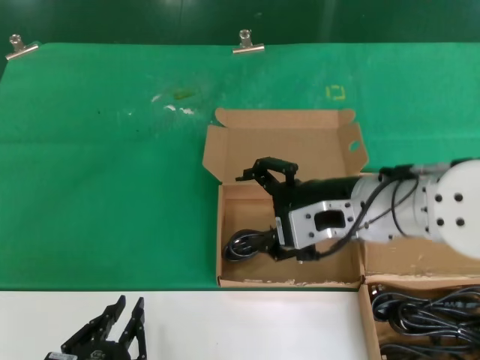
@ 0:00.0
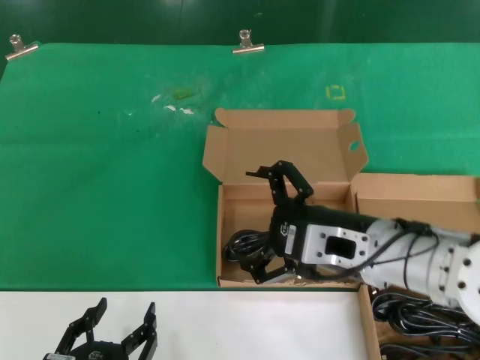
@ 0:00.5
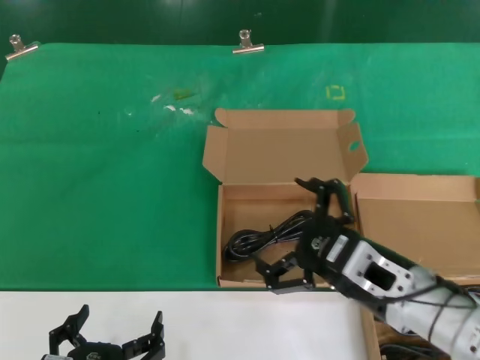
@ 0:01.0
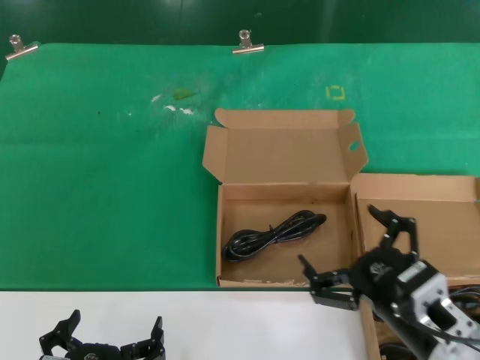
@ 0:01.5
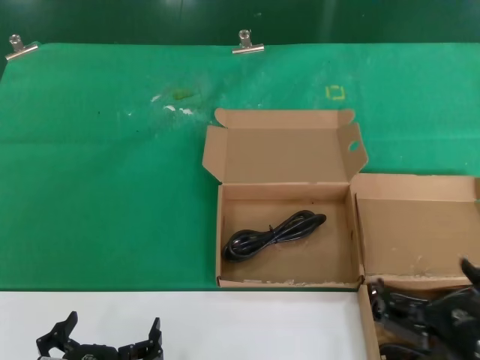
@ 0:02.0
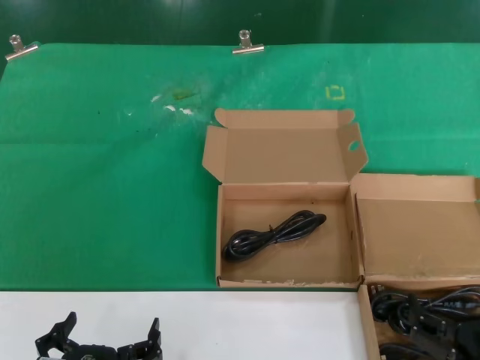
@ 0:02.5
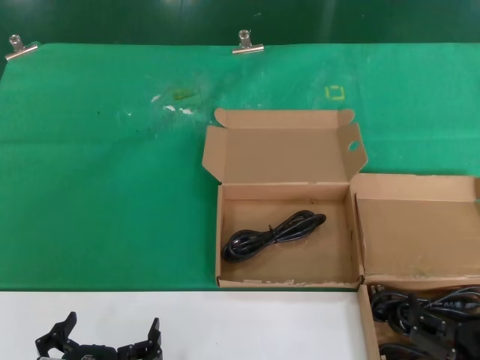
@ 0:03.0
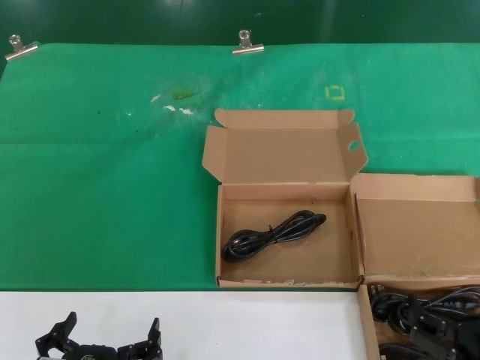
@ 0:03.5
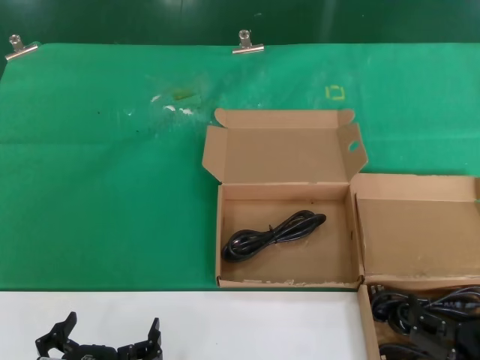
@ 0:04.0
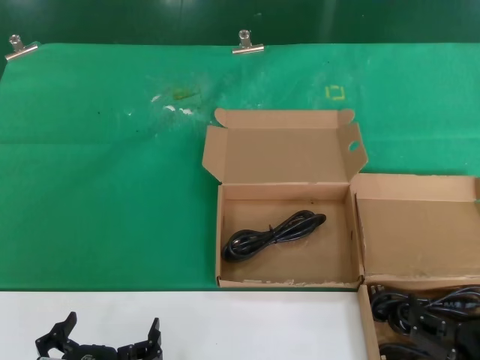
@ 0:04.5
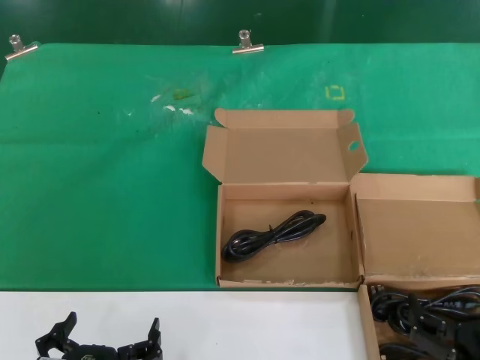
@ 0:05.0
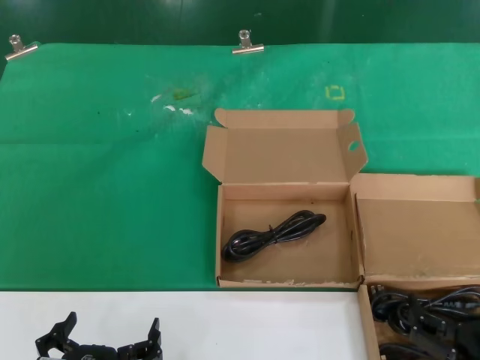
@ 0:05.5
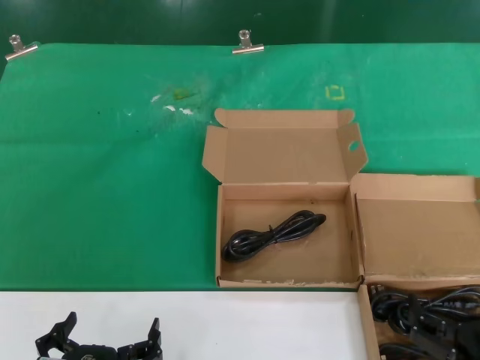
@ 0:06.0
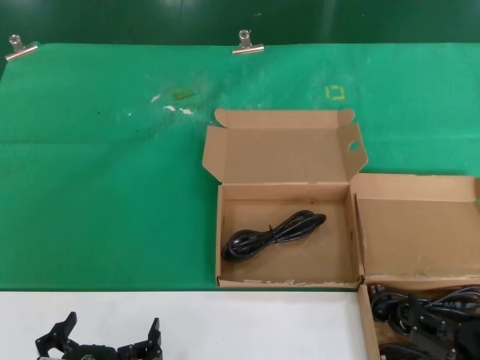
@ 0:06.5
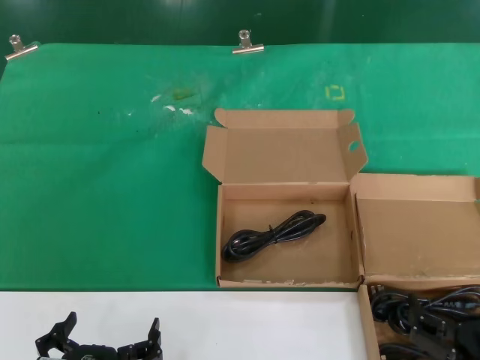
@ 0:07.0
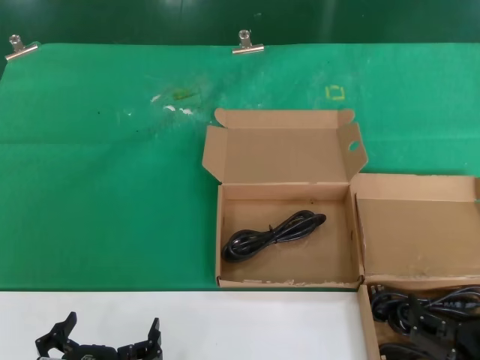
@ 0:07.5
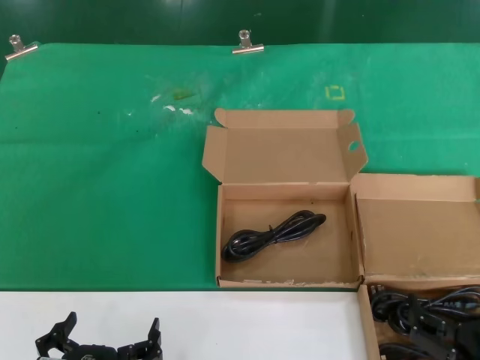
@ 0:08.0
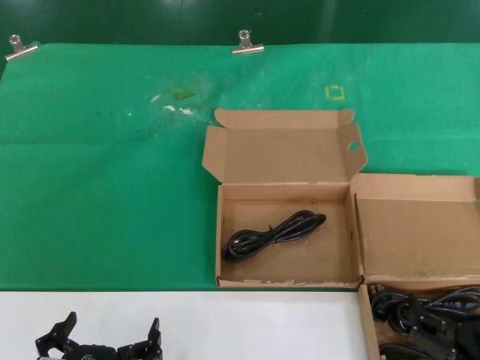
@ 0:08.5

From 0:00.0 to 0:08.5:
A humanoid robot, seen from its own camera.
Task of the whole recording: take the parts from the box containing them and put them into an empty box.
From 0:00.0 to 0:02.0: The right hand travels downward, backward and to the right by about 30 cm.
From 0:02.0 to 0:04.0: The hands make only small movements.
From 0:04.0 to 0:08.5: Both hands stay about where they are.

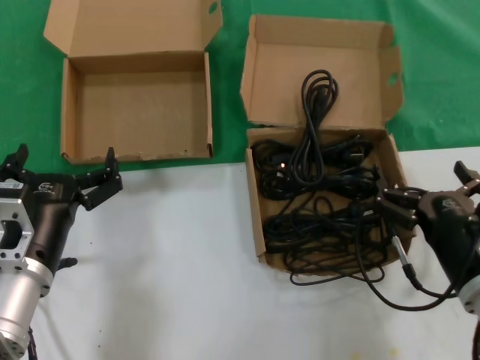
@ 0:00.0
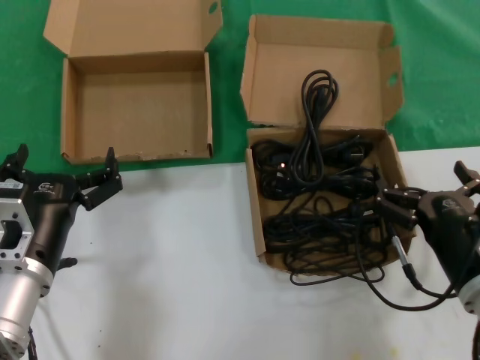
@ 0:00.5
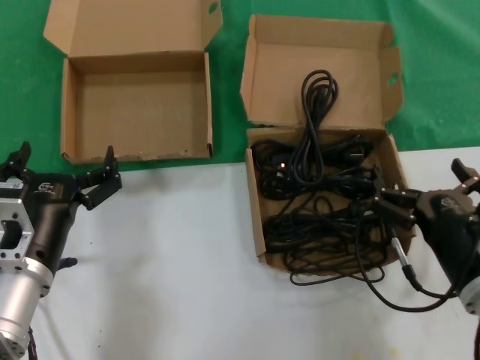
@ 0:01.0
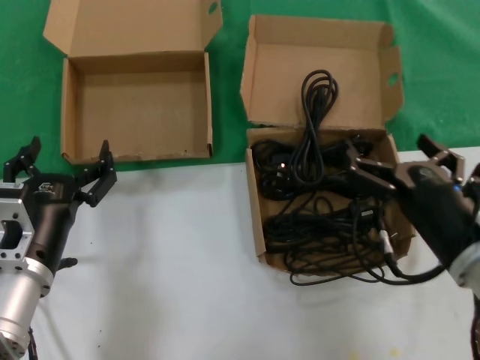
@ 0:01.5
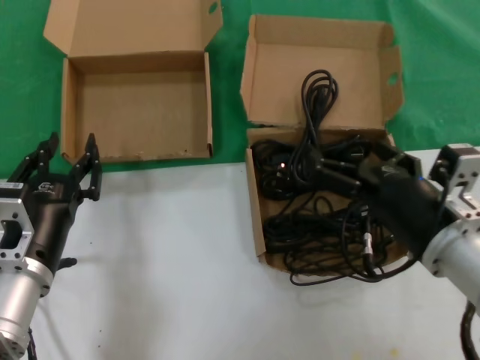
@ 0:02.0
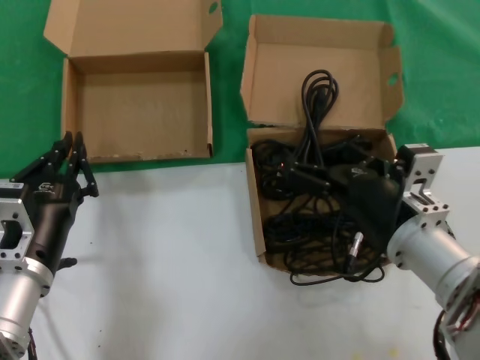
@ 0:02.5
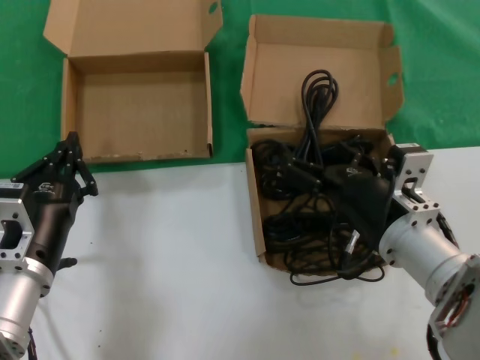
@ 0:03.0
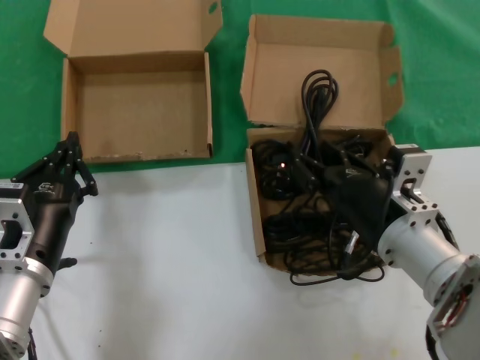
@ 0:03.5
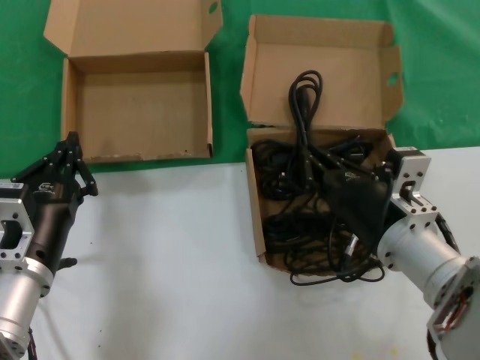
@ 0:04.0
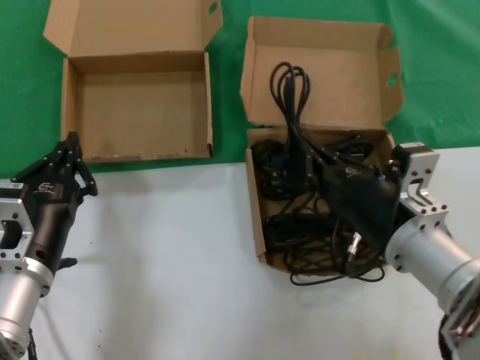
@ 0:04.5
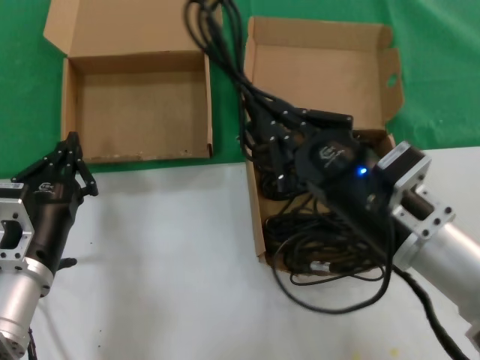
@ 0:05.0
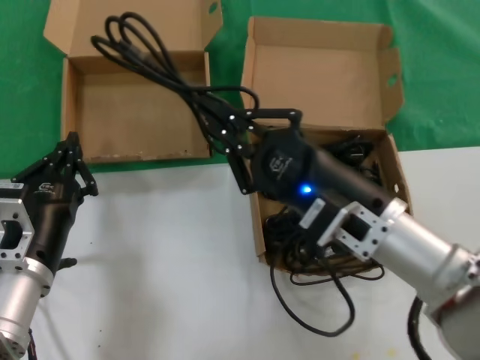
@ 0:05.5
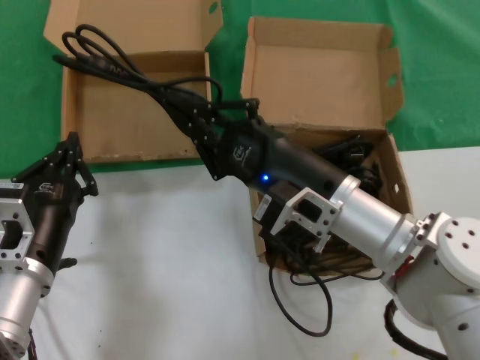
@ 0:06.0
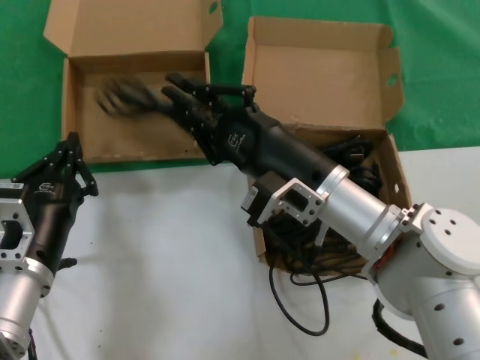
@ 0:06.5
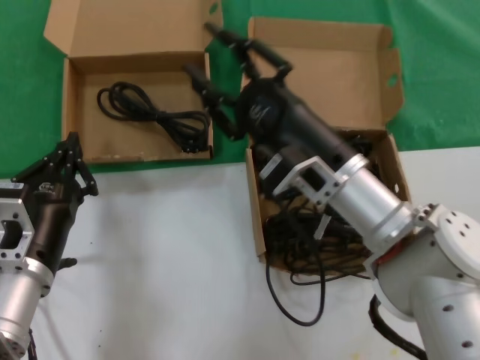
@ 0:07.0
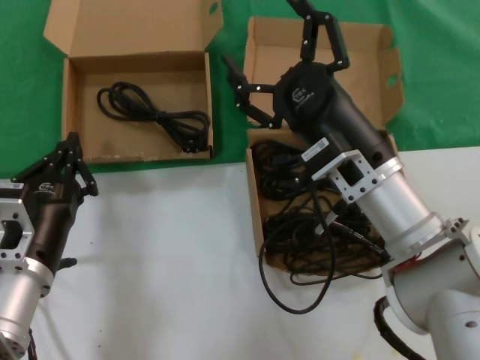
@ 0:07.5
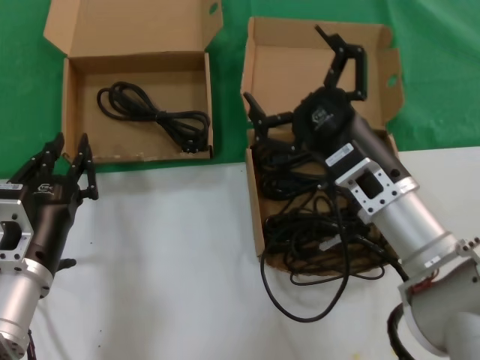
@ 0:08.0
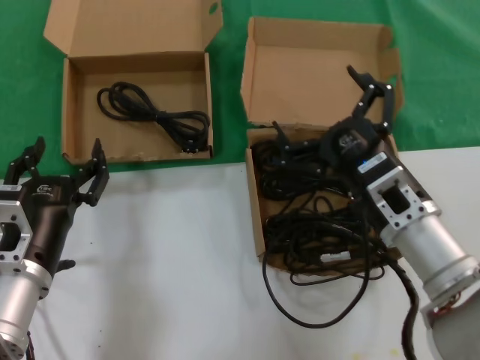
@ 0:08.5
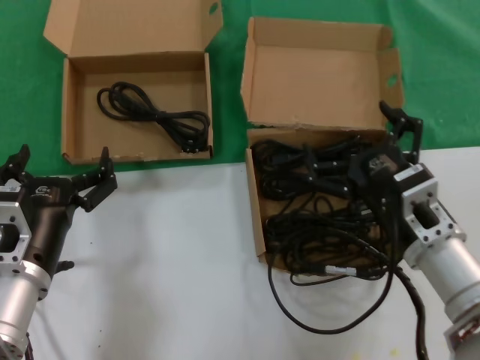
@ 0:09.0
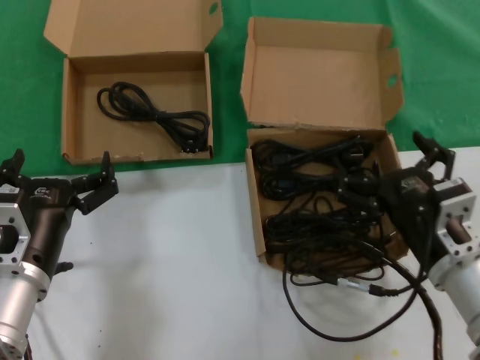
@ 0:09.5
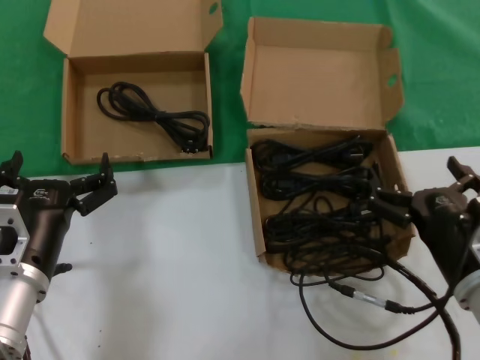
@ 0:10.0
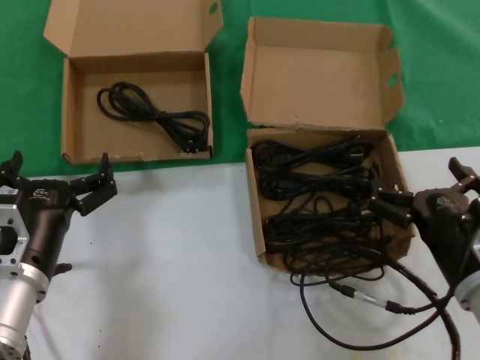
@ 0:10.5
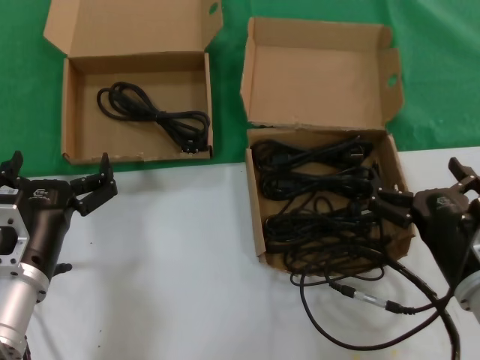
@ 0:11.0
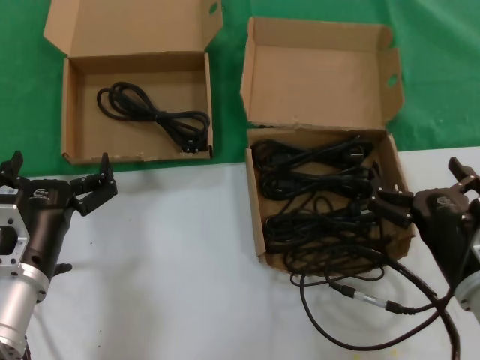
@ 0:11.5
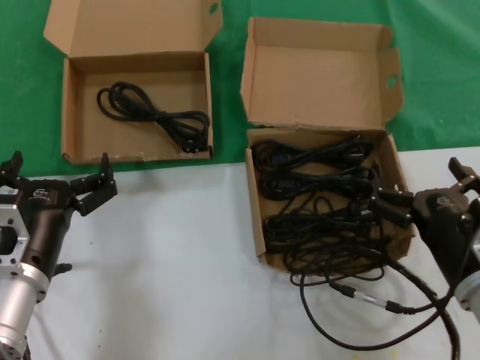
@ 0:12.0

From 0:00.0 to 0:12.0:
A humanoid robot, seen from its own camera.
Task of the whole recording: take the parts from the box containing them and put them into an empty box.
Step, from 0:00.0 to 0:03.5: Grasp the data cable.
Step, from 0:04.0 to 0:06.5: Place the data cable in the another box.
From 0:00.0 to 0:02.0: The right hand moves upward, roughly 5 cm.
From 0:02.0 to 0:04.0: The right hand shifts by some 5 cm.
From 0:04.0 to 0:06.0: The right hand moves to the left, roughly 5 cm.
From 0:08.0 to 0:10.0: The right hand travels to the right, backward and downward by approximately 15 cm.
From 0:10.0 to 0:12.0: The two hands keep their place.

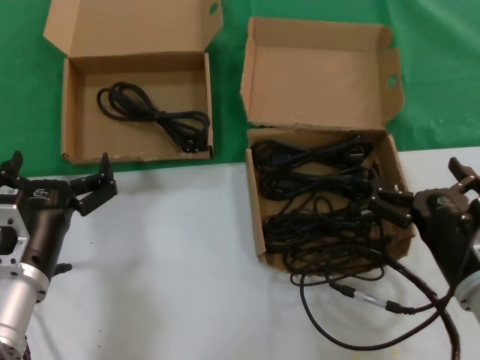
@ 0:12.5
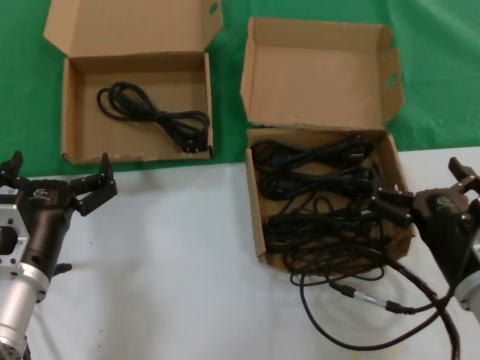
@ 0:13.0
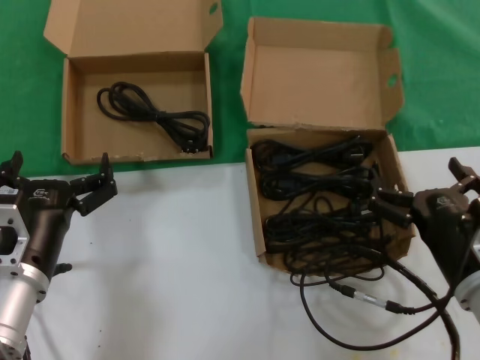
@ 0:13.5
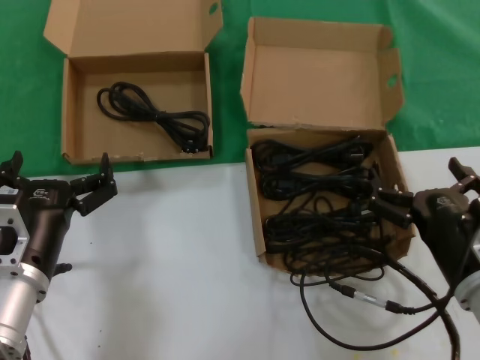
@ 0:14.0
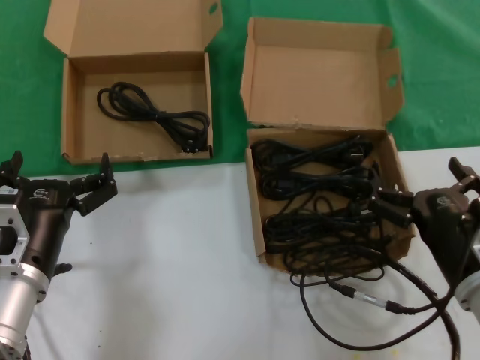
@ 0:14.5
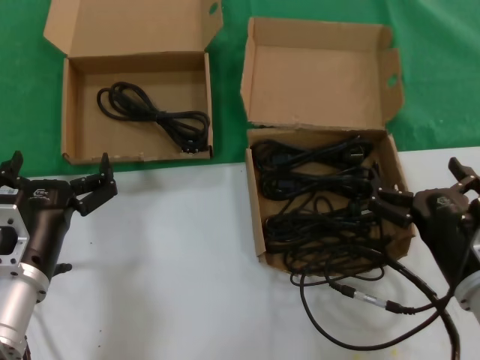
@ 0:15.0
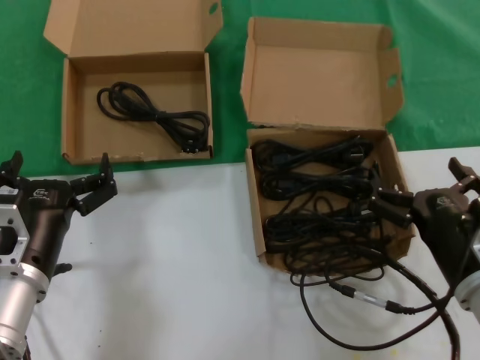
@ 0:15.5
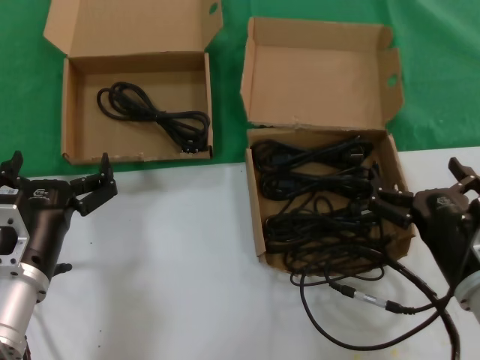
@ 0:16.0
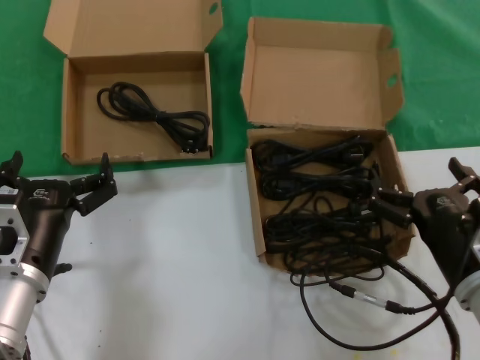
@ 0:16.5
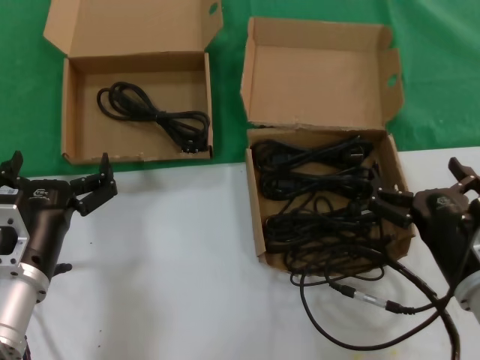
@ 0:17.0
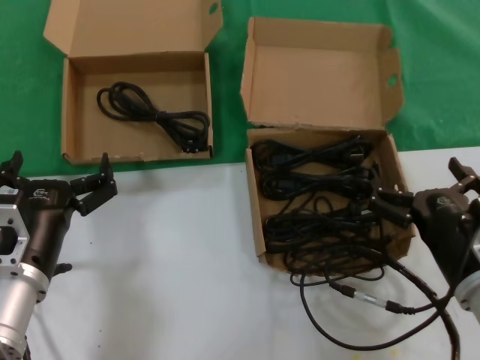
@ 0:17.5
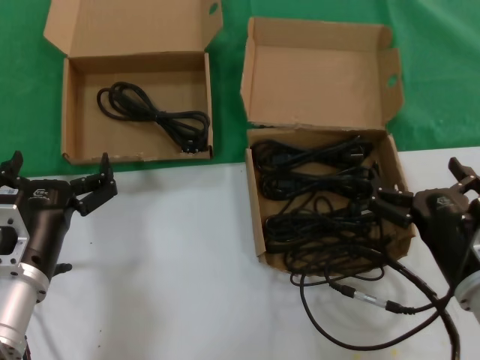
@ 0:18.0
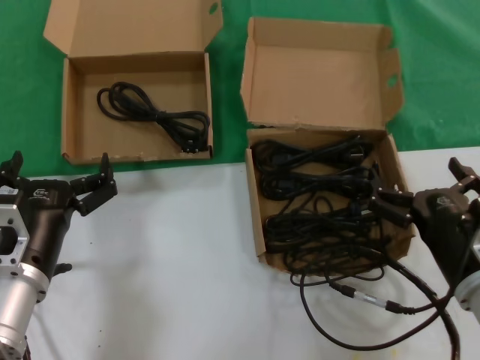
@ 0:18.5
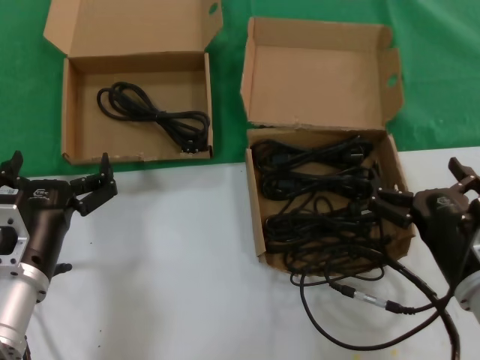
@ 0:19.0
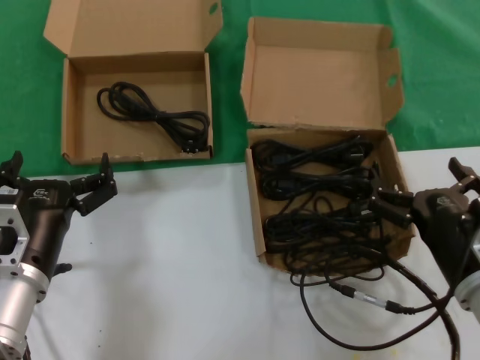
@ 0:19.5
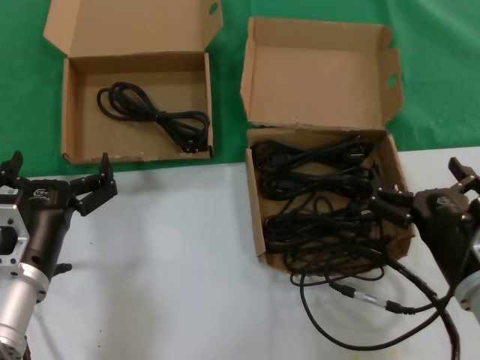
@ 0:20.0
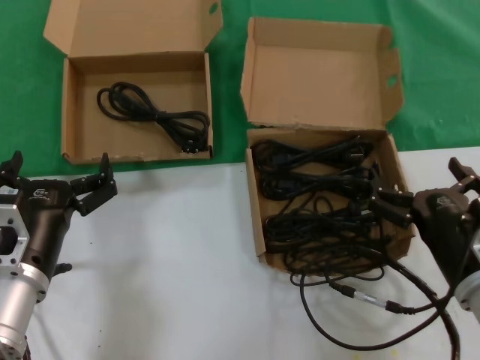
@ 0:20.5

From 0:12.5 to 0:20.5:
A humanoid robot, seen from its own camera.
Task of the whole recording: take the parts from the box containing them and put them into an empty box.
From 0:12.5 to 0:20.5: Both hands stay about where they are.
